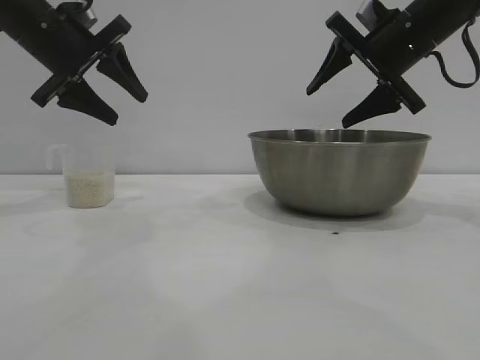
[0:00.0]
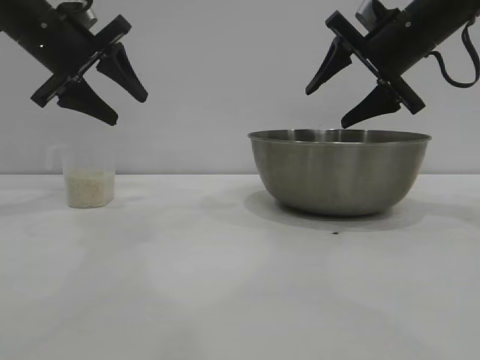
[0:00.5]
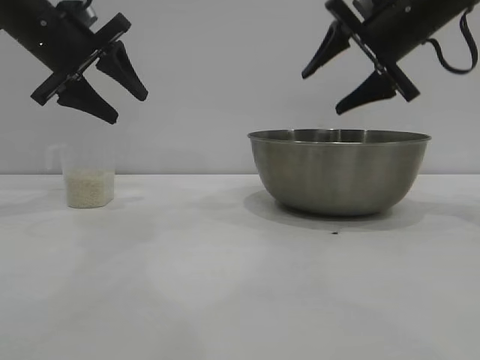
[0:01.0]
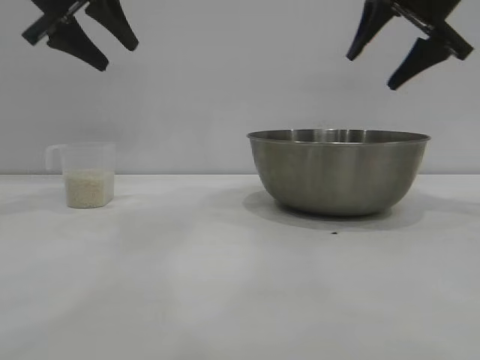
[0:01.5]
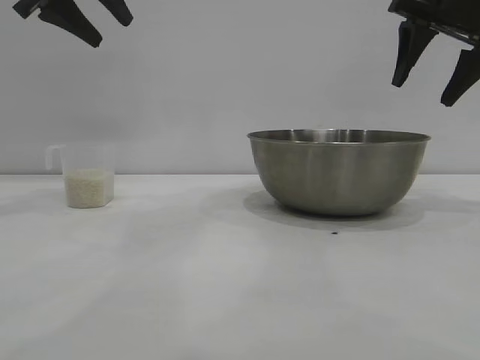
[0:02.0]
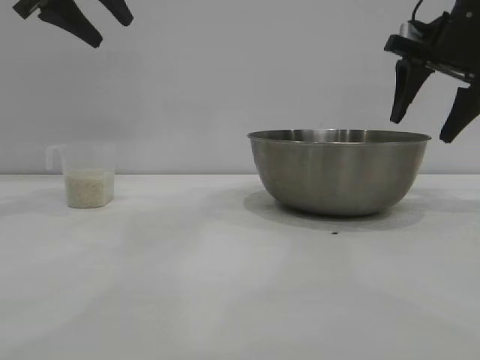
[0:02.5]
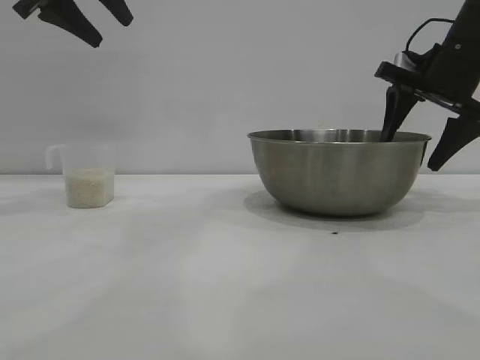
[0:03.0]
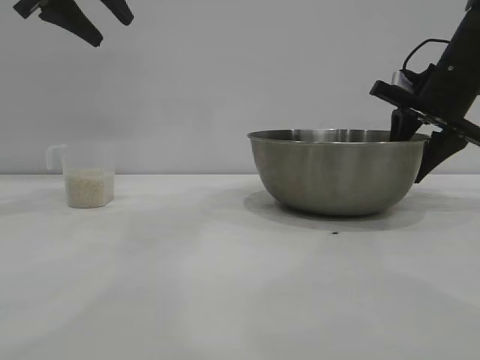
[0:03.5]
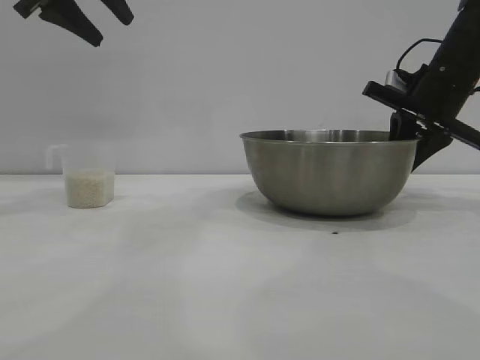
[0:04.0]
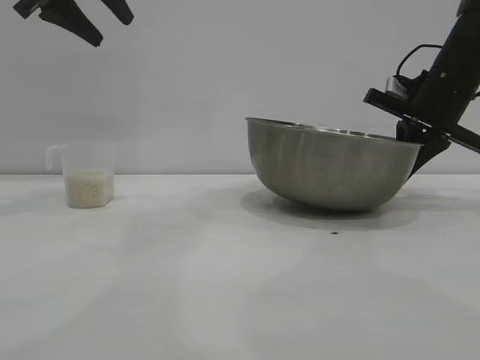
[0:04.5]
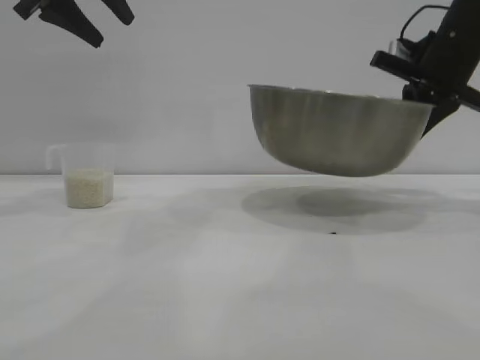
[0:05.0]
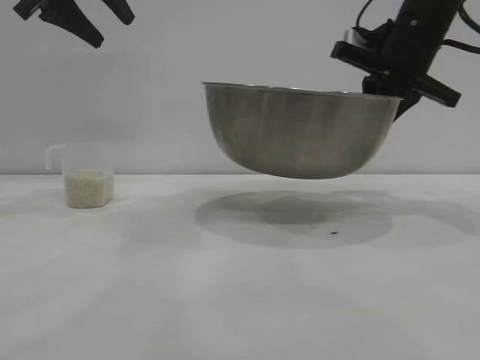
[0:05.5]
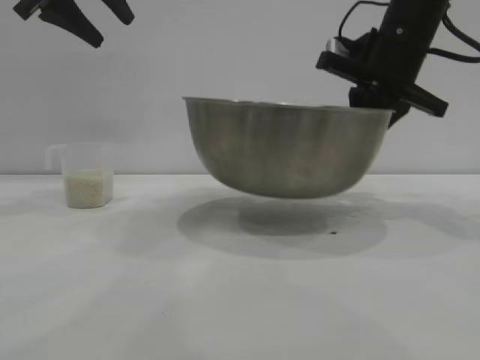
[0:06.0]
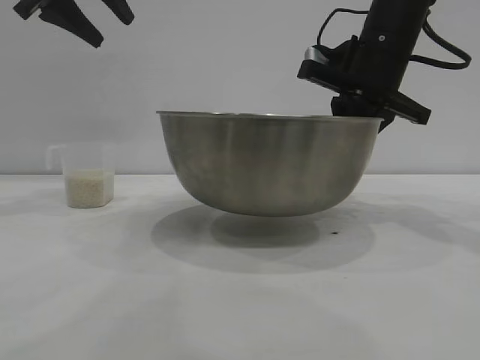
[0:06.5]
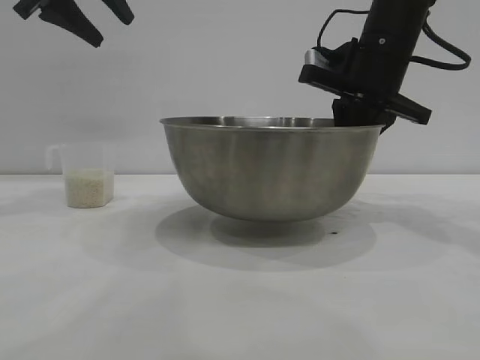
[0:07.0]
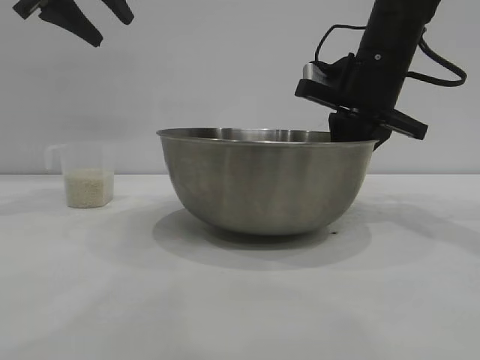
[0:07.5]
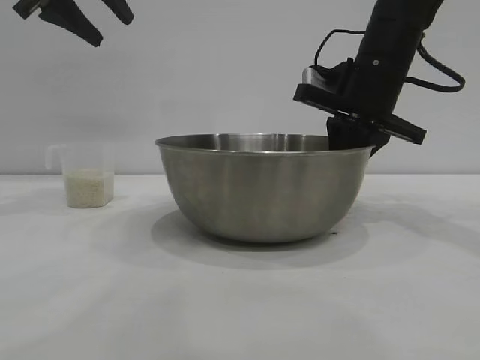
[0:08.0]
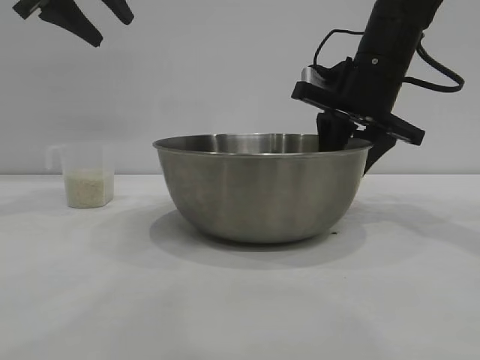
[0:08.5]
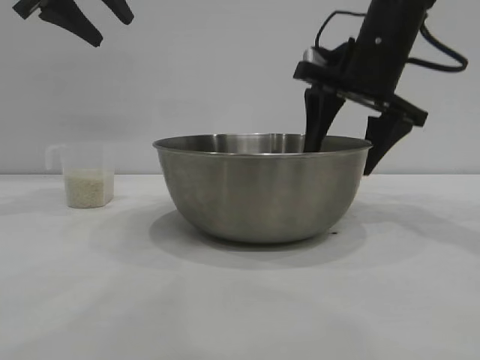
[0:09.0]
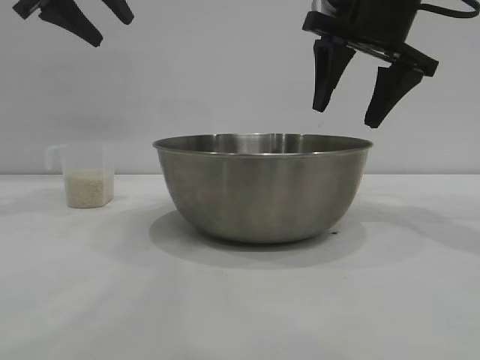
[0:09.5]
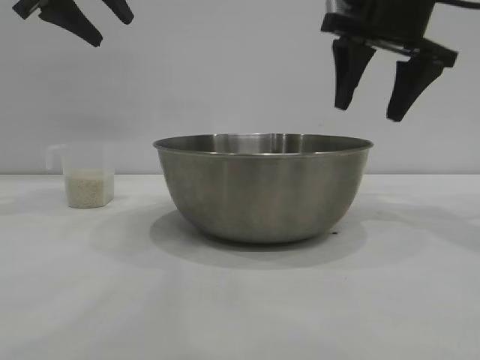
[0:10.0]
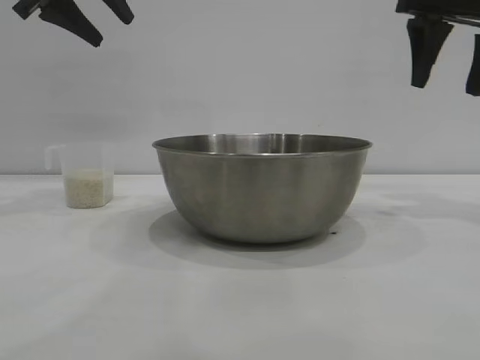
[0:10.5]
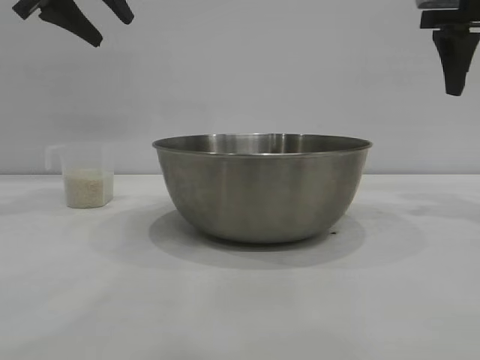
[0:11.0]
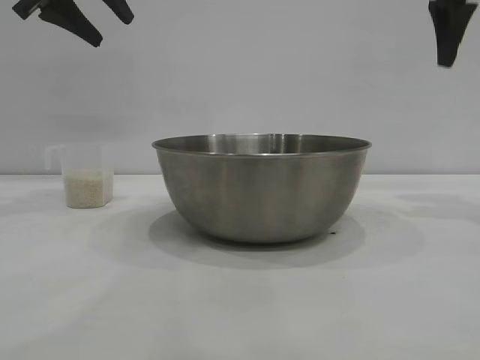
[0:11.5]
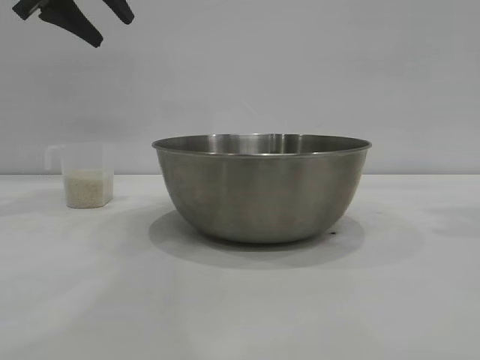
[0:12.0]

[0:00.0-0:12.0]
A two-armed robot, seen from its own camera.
Task of the whole recording: the right gripper grasp the rice container and place it in the center of the table, the left gripper grasp the rice scoop and pour the rice into the rice container.
Step, 0:00.0 to 0:05.0: Pick up the bowl with the right gripper.
Step, 0:05.5 to 0:09.5: Place the bowl in the center of view with the right gripper.

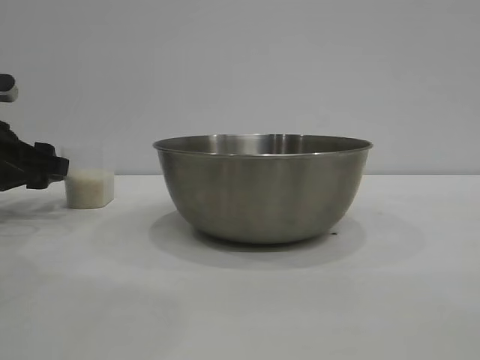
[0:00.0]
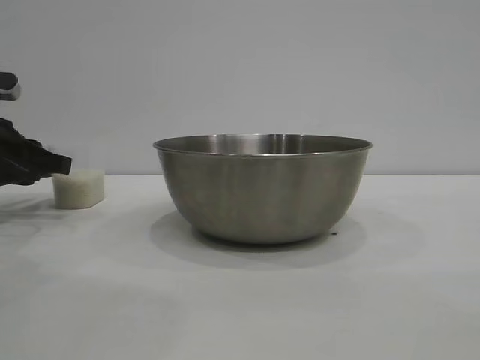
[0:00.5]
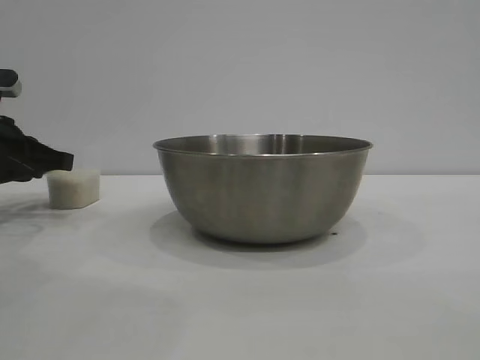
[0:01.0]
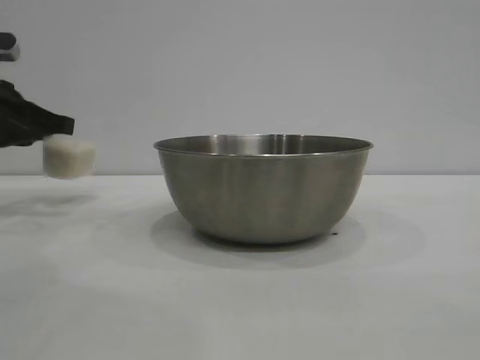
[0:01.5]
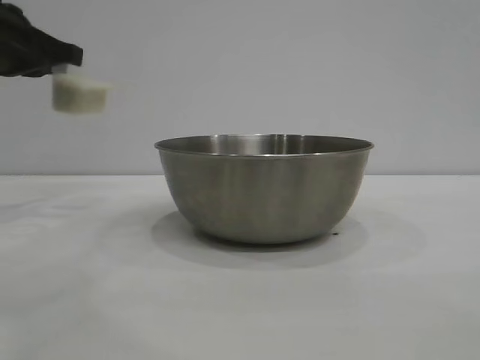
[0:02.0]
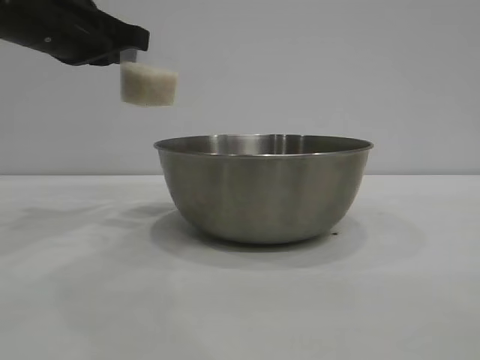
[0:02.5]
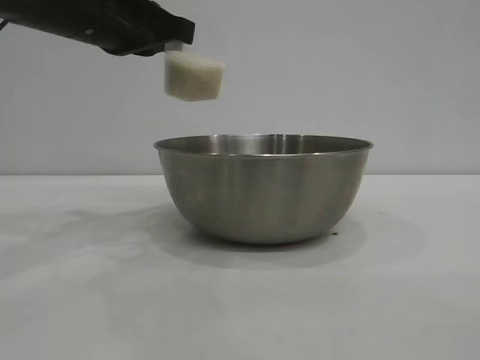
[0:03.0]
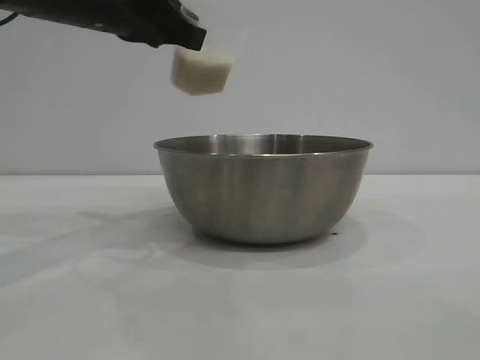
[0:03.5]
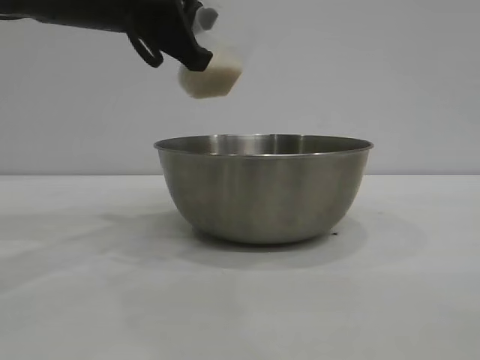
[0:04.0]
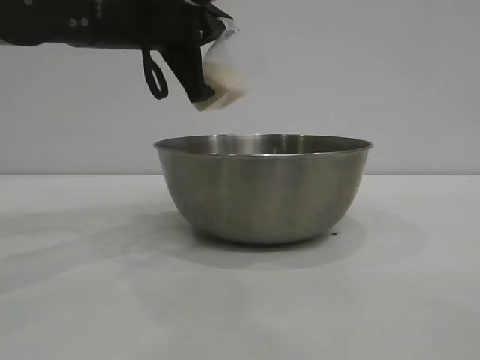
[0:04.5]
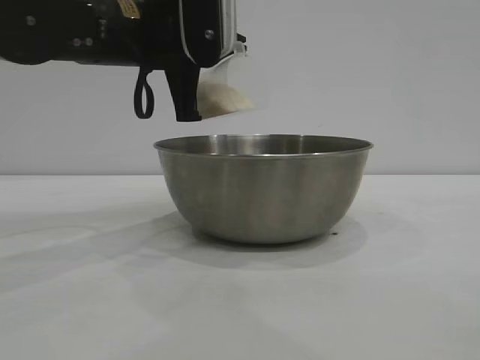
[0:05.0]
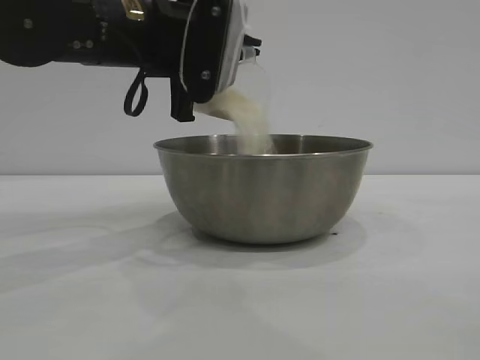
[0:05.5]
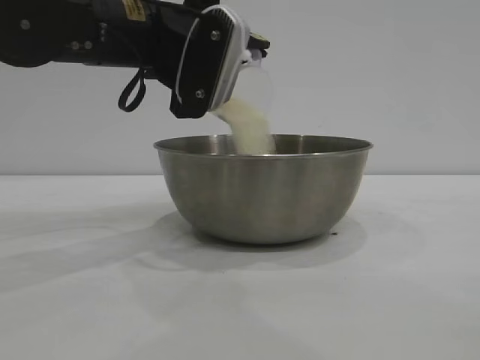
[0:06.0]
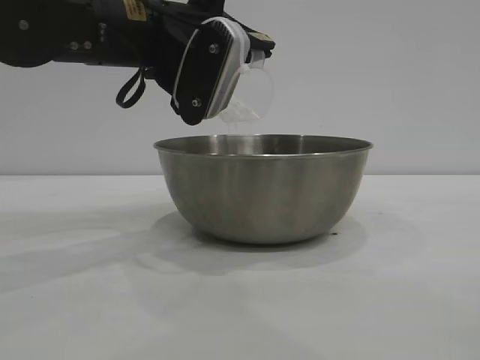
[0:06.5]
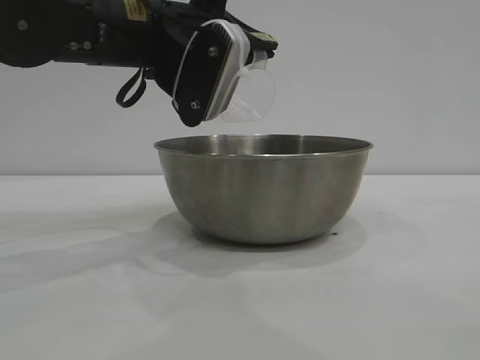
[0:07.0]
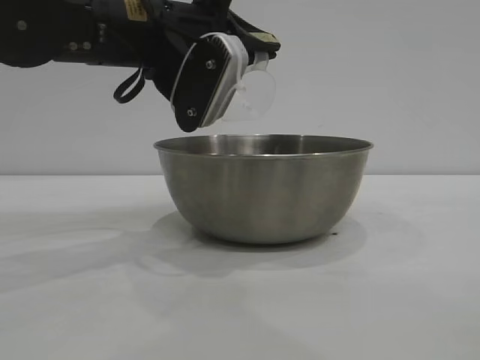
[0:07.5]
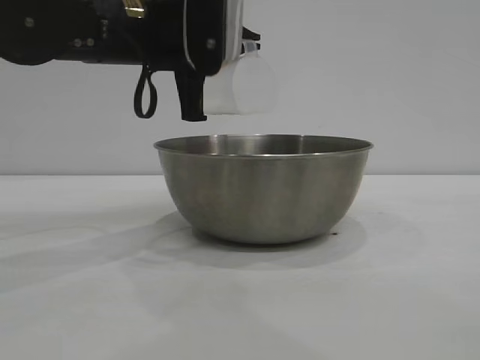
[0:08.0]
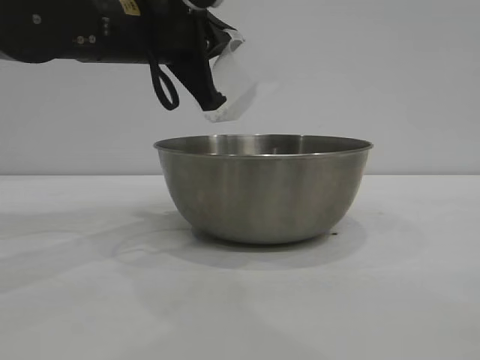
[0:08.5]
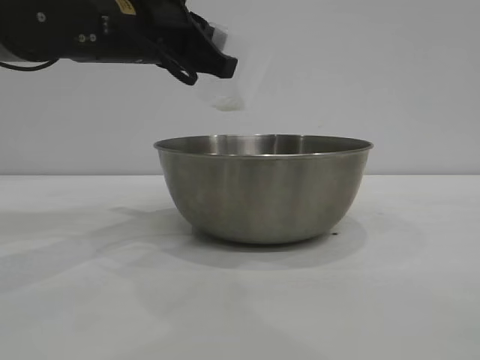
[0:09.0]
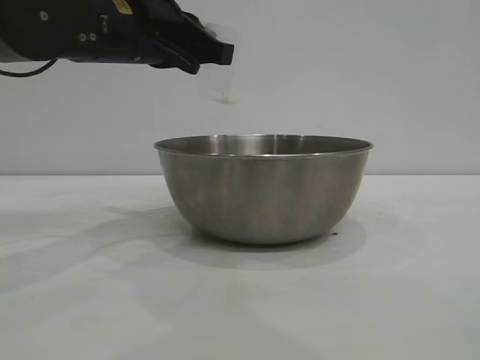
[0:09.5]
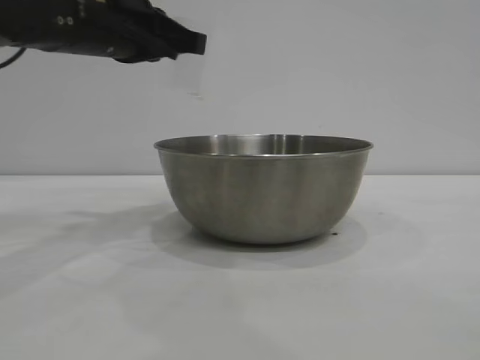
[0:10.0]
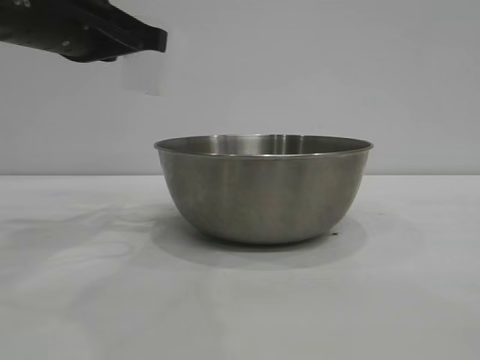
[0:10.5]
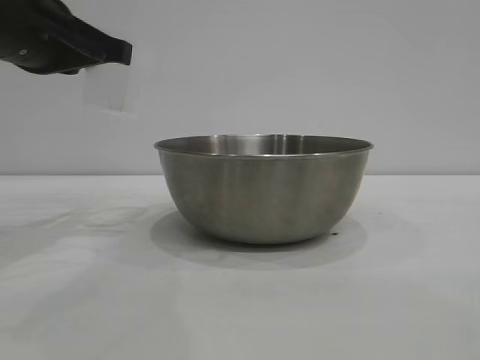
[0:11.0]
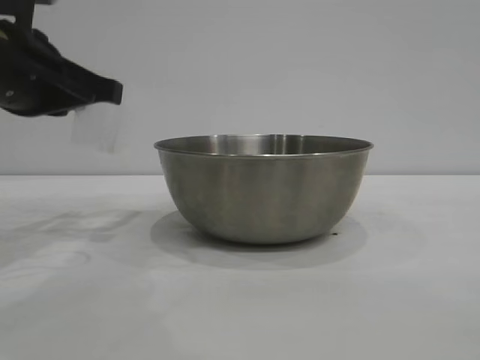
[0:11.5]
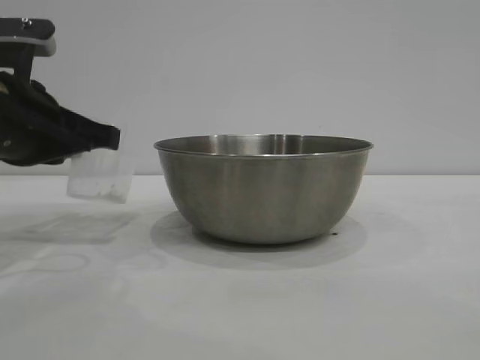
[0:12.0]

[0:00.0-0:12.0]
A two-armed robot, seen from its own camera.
Task of the whole recording: the right gripper grasp the rice container and place it in the center of the table, the left gripper grasp the rice scoop and pour the rice into the rice container.
Step, 0:02.0 to 0:07.0: Pour the rice from the cup into the bowl with the left gripper.

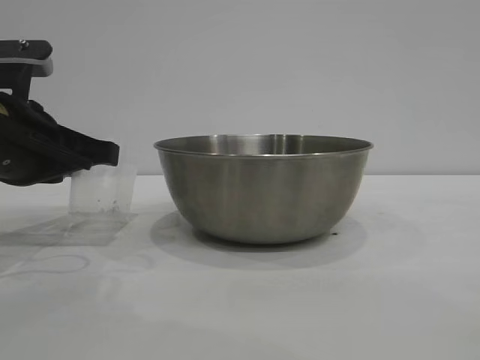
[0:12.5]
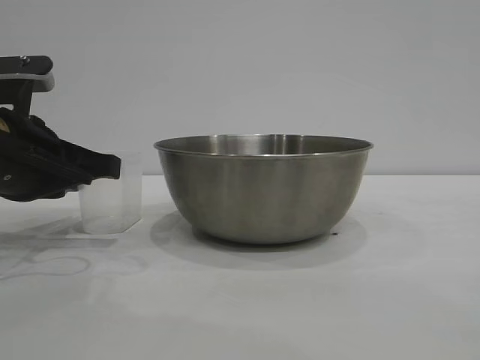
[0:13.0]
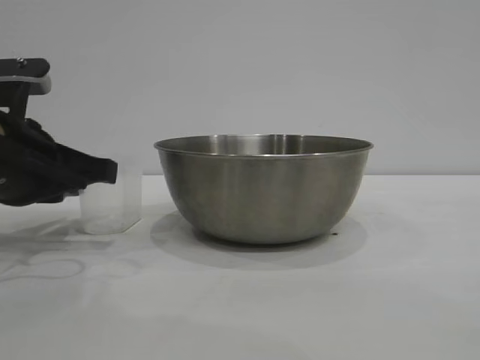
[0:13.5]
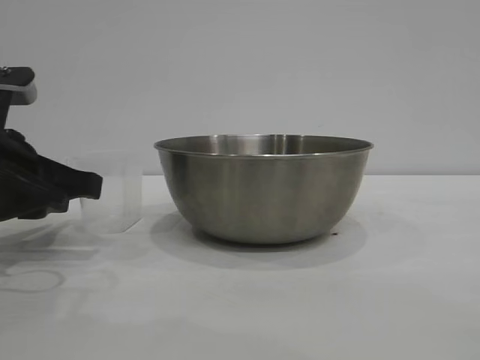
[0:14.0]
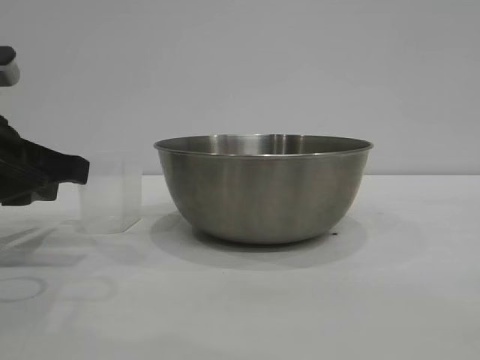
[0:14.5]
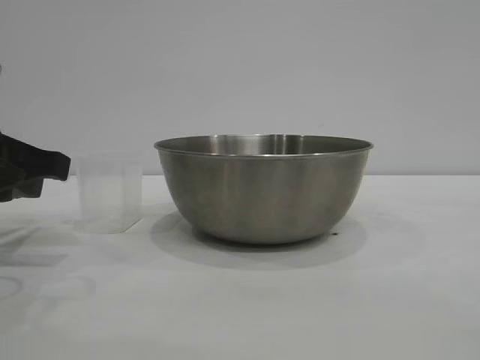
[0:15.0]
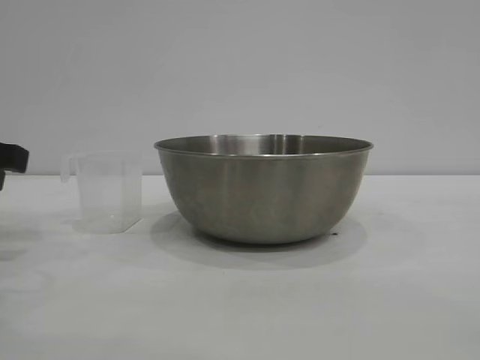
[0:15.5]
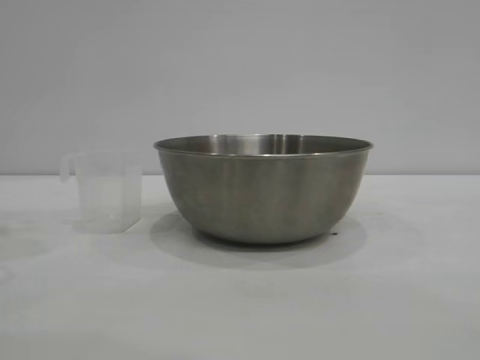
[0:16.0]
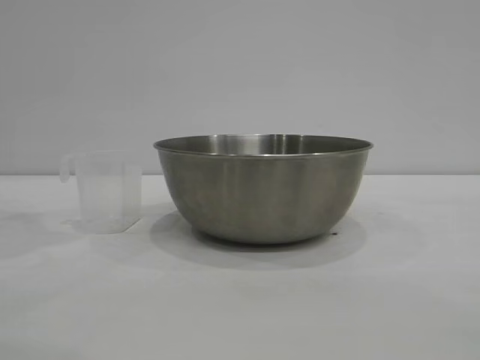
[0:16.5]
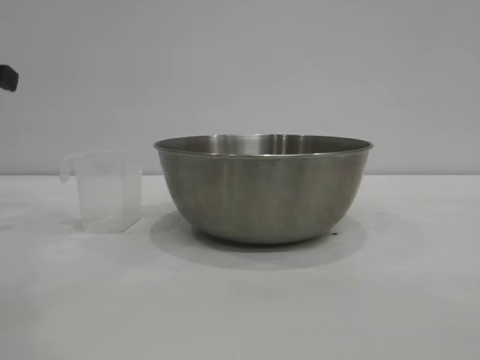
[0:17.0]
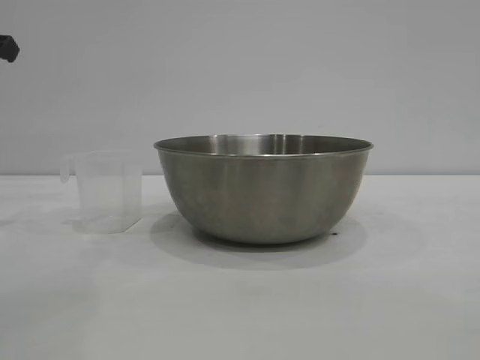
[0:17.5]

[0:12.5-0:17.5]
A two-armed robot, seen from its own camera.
Task of the whole recording: the right gripper grasp the rice container and place it in the center of the table, the left gripper grasp the rice scoop and pour the rice into the rice container.
Step, 0:12.5 to 0:14.5: Place the cup on the table with the left gripper.
